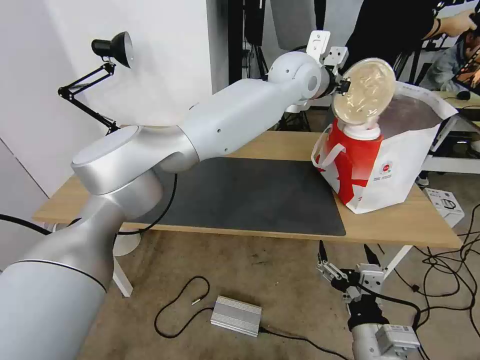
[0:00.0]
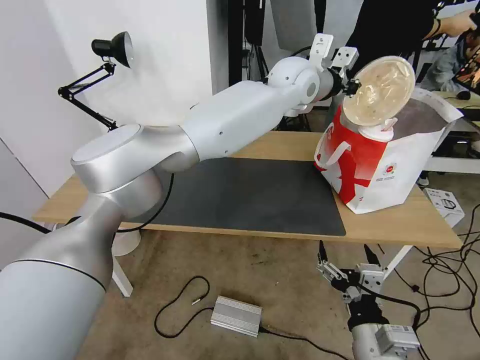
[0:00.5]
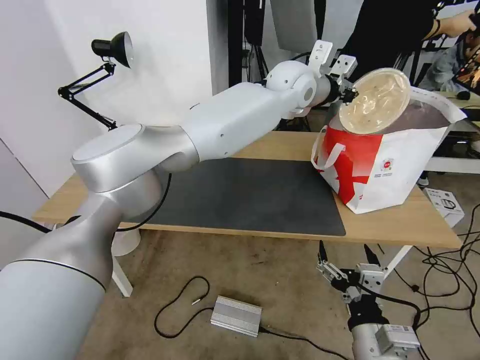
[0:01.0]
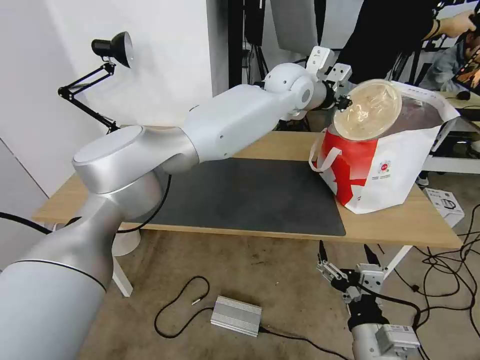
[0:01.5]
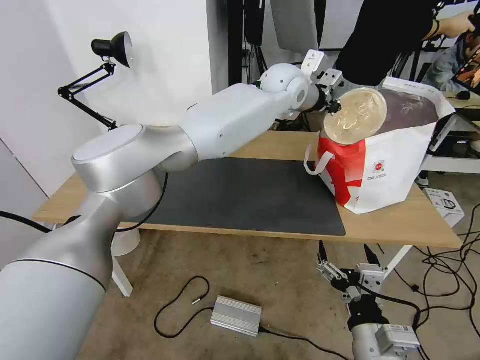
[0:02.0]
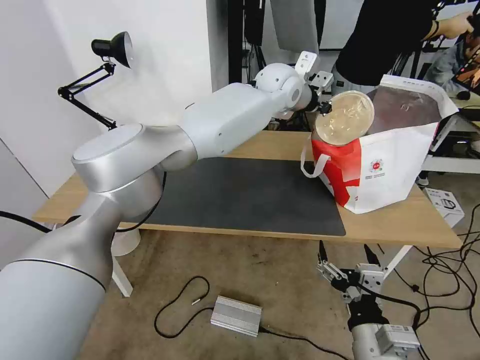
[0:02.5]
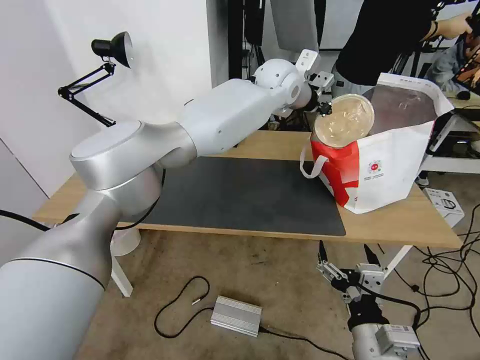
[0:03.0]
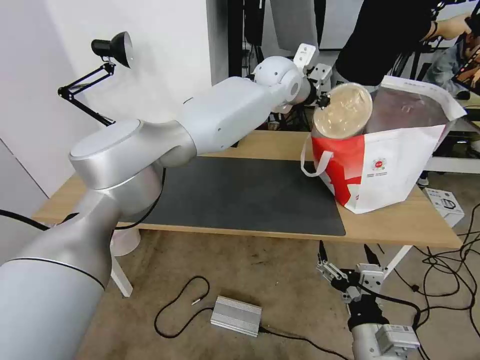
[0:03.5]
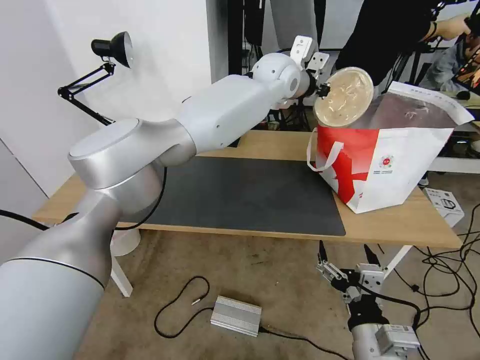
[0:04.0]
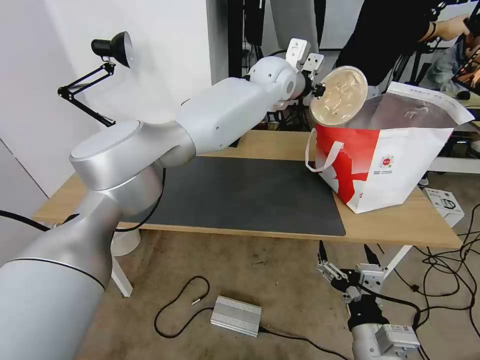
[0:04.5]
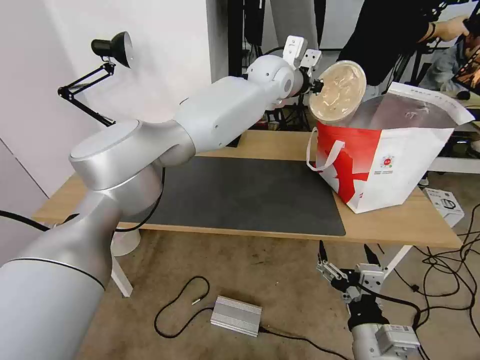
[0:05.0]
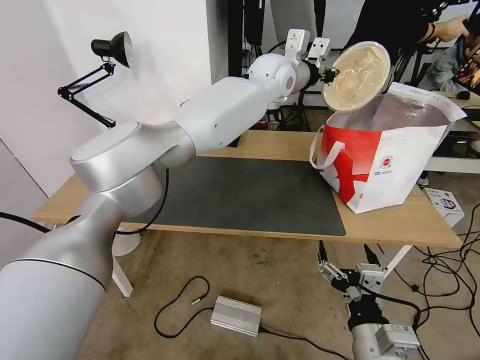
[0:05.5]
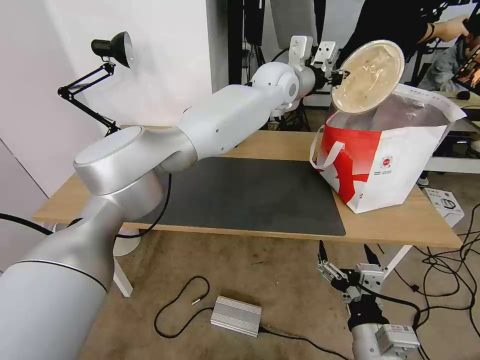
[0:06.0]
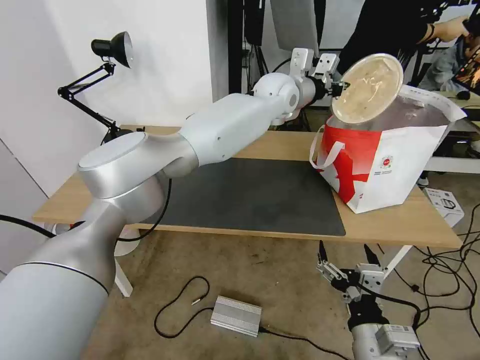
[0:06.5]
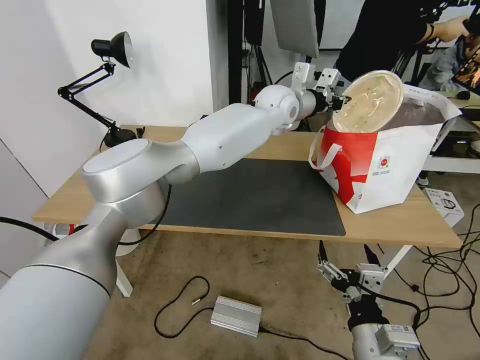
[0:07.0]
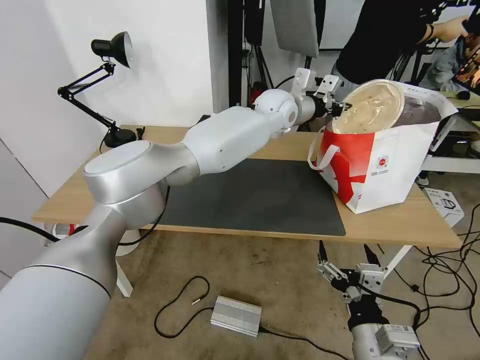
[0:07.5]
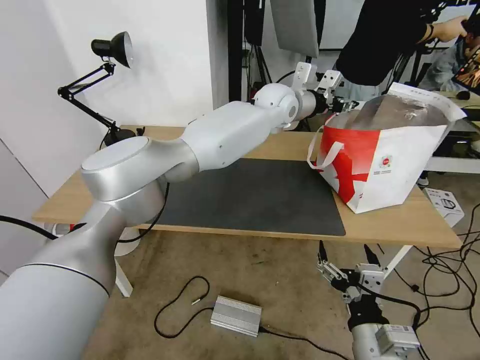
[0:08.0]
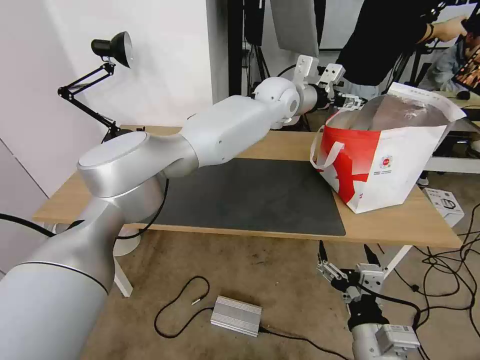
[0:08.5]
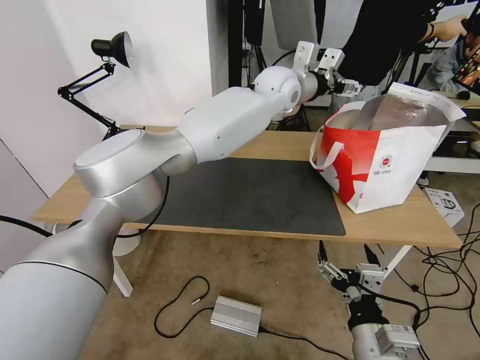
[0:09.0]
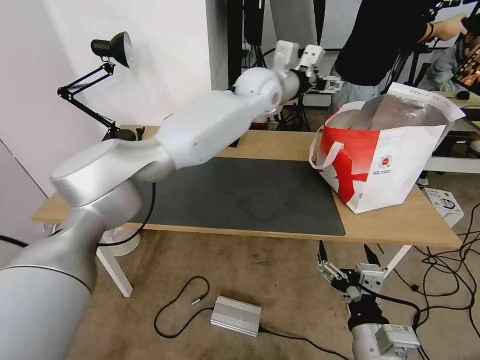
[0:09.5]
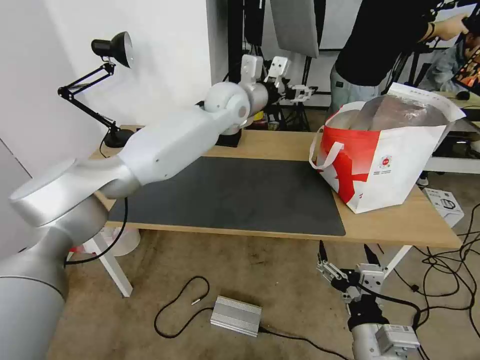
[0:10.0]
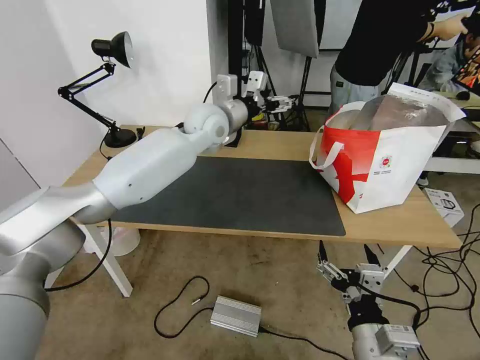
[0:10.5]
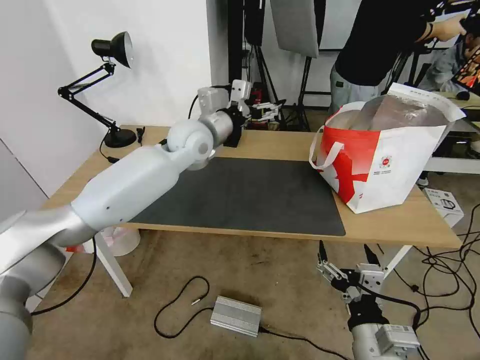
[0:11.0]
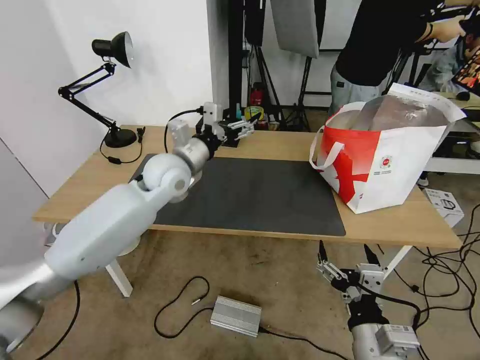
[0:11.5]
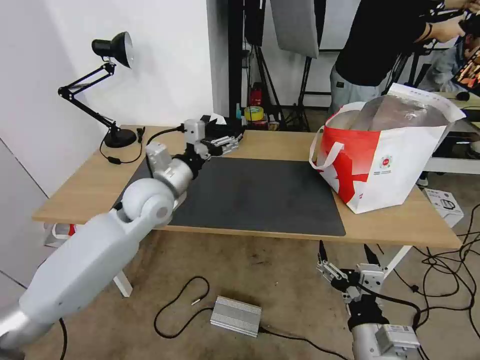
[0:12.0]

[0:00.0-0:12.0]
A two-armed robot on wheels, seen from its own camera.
Task of the whole recording: Pick up the trash from the table and place it into the takeout bag.
0:00.0 to 0:04.0: The grippers make only small movements.
0:04.0 to 0:06.0: The grippers move only a little.
0:06.0 to 0:08.0: The left gripper opens.
0:08.0 to 0:10.0: The left gripper travels to the left by roughly 10 cm, and opens.
0:10.0 to 0:12.0: The left gripper is displaced backward, to the left and downward by roughly 30 cm.

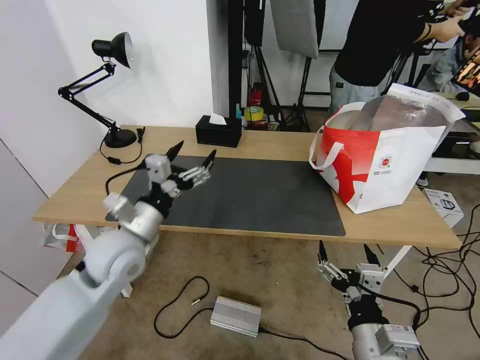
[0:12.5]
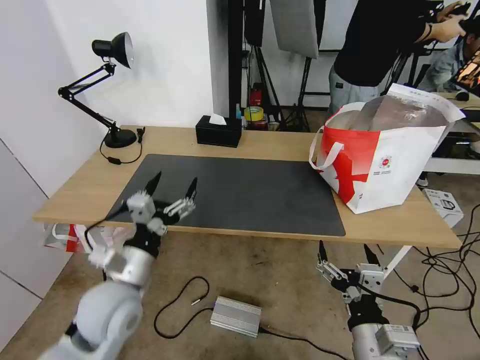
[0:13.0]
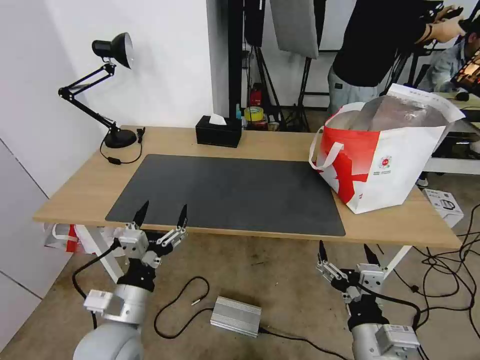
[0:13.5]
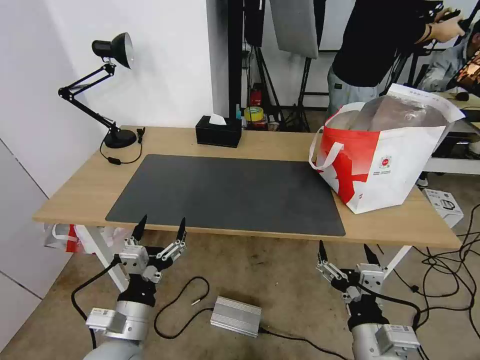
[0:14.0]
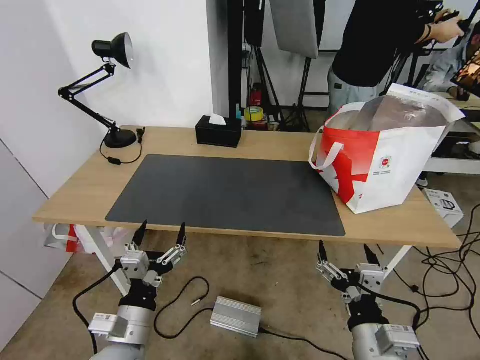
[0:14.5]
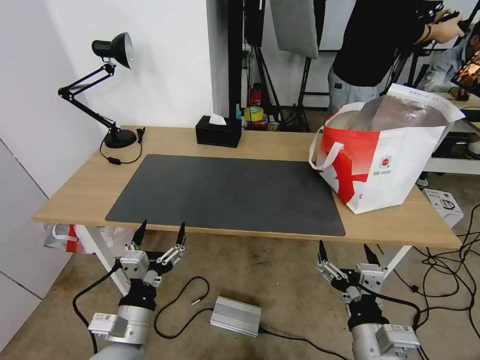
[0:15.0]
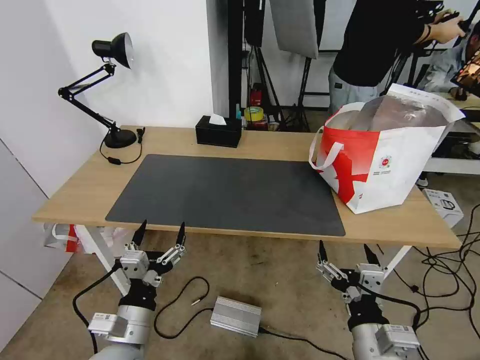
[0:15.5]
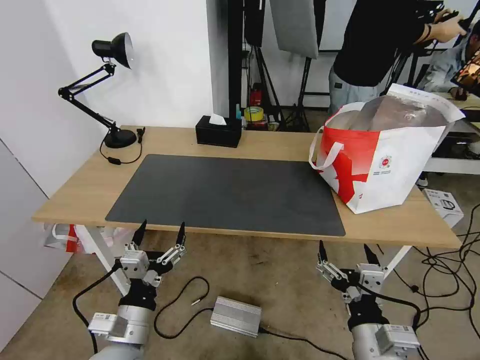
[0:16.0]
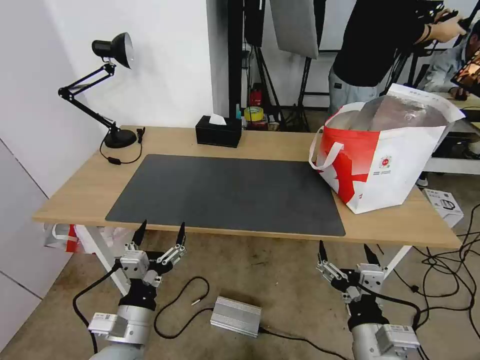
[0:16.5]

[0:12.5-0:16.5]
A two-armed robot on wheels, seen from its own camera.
Task of the whole recording: Pick up the trash from the table and place it into the takeout bag.
0:12.5 to 0:14.5: The left gripper goes about 20 cm backward and downward.
0:14.5 to 0:16.5: Both grippers stay put.
